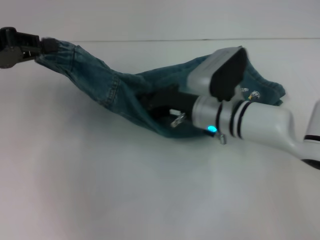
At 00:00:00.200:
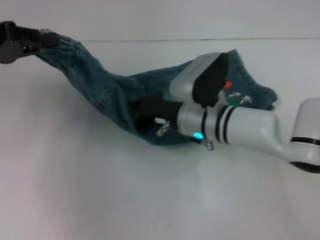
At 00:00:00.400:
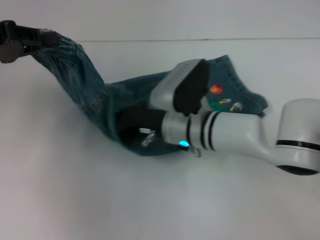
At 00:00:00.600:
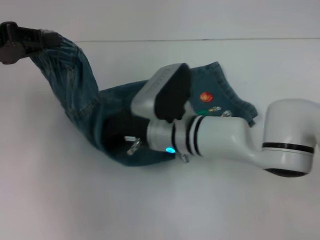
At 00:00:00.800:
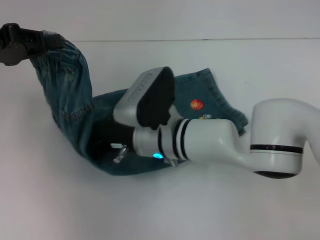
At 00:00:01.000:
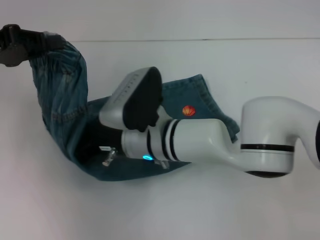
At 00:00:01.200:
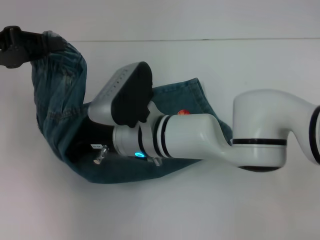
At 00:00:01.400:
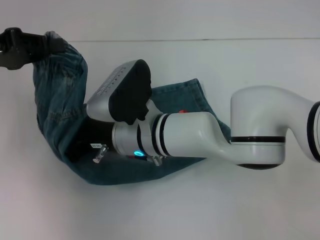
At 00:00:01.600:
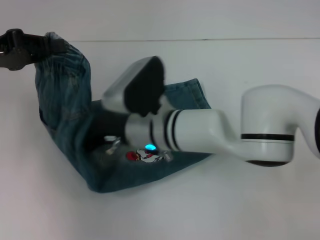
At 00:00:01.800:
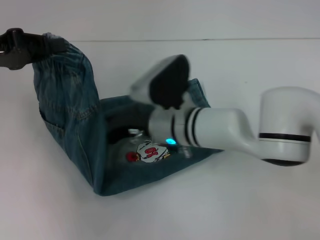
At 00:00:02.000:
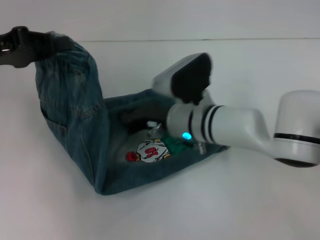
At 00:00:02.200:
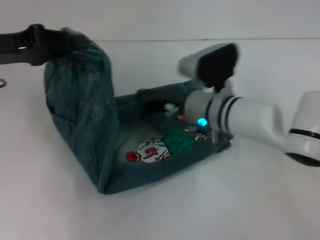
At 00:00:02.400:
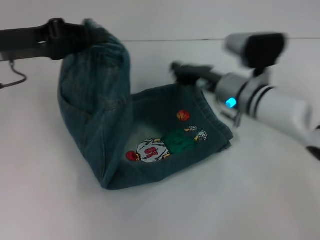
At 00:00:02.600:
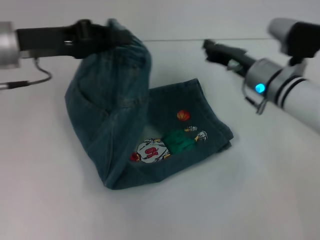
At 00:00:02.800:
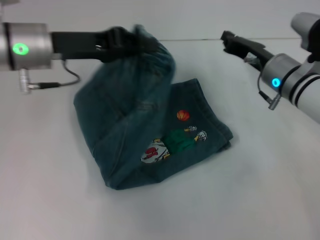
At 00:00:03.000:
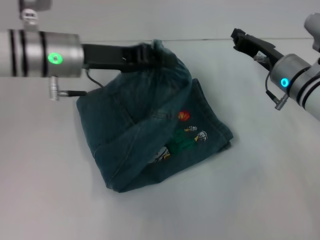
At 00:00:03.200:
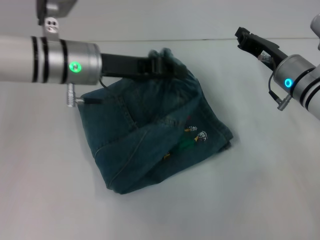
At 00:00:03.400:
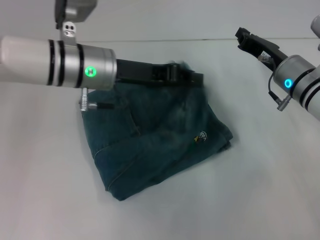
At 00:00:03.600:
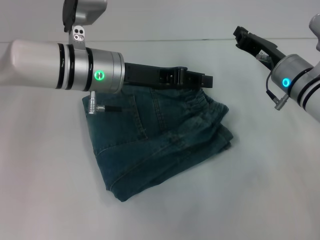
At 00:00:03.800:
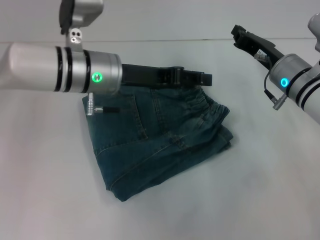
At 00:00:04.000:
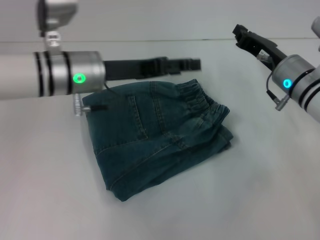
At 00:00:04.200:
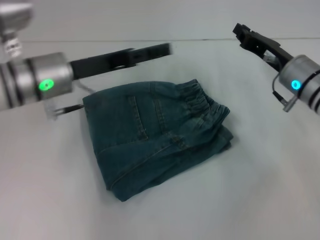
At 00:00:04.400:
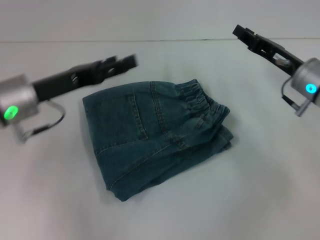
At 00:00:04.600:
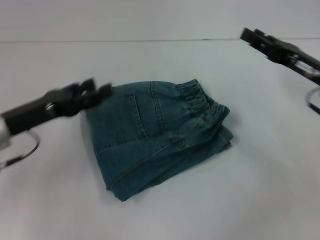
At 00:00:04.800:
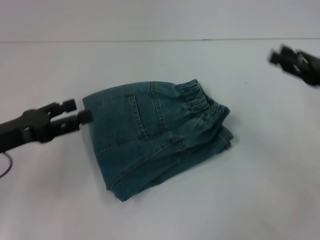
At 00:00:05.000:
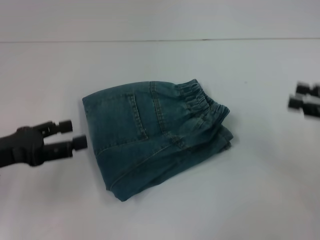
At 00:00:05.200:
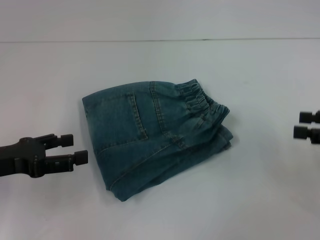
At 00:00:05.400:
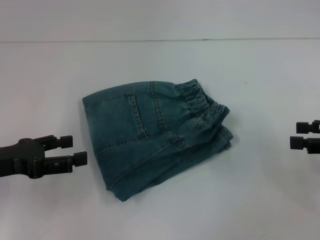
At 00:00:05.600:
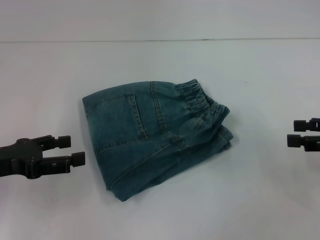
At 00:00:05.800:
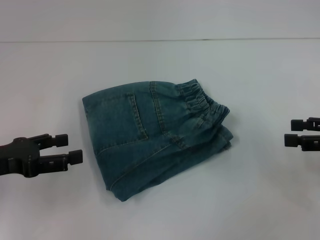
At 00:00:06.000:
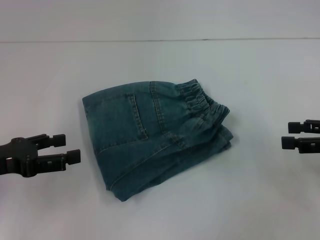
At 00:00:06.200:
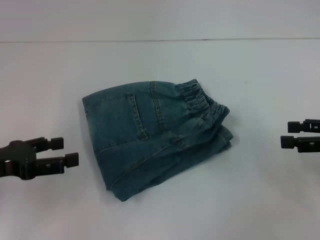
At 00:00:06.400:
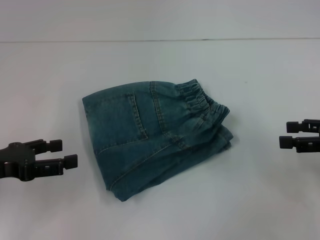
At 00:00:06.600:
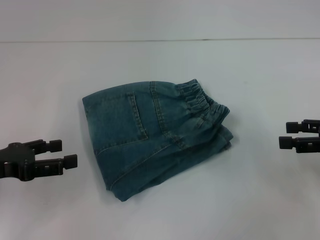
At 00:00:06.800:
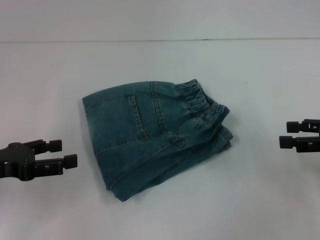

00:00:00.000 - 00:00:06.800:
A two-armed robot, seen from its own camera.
Step, 00:00:01.800 - 00:00:04.400: Fold to the right with your left hand.
00:00:00.000 - 00:00:01.400: The right gripper shifts roughly 10 cm to the left.
00:00:01.400 - 00:00:02.800: The left gripper goes some 10 cm to the right, while the right gripper is displaced to the right by roughly 20 cm.
00:00:02.800 - 00:00:04.000: The left gripper travels to the right by about 5 cm, and opens up.
00:00:04.000 - 00:00:05.400: The left gripper goes roughly 20 cm to the left and backward, and opens up; the right gripper moves to the right and backward, about 20 cm, and opens up.
00:00:05.400 - 00:00:06.800: The grippers make only small movements.
